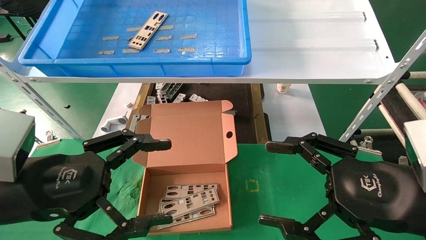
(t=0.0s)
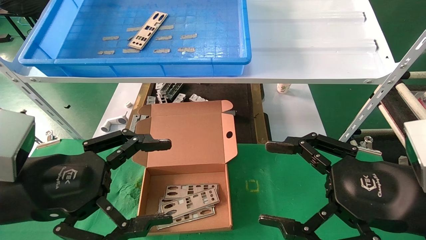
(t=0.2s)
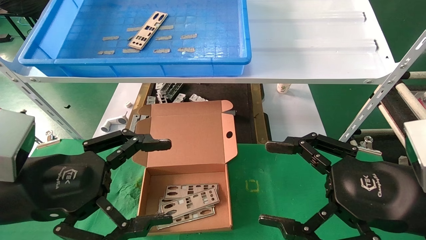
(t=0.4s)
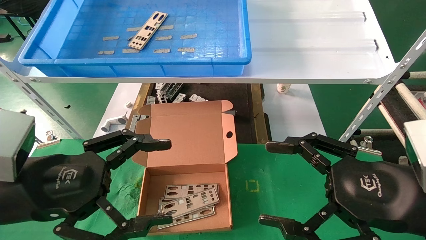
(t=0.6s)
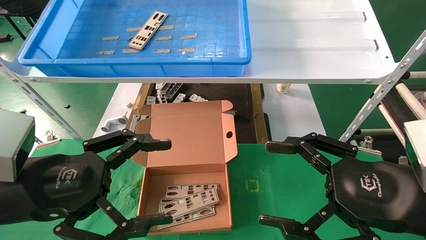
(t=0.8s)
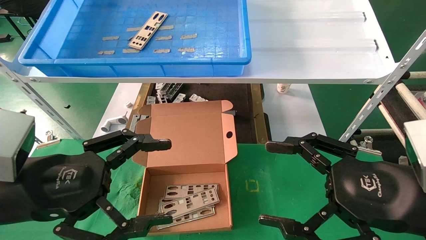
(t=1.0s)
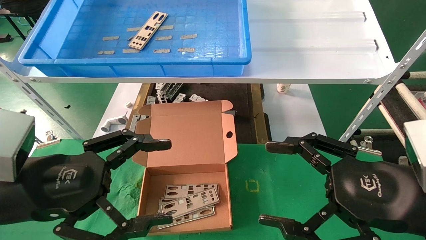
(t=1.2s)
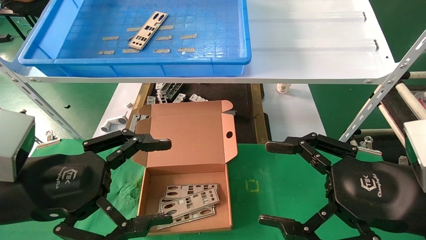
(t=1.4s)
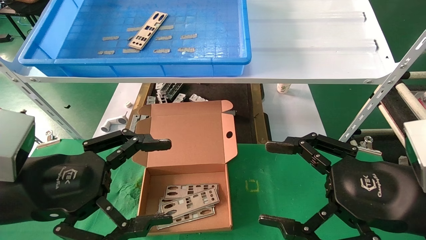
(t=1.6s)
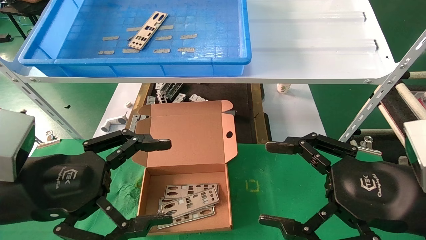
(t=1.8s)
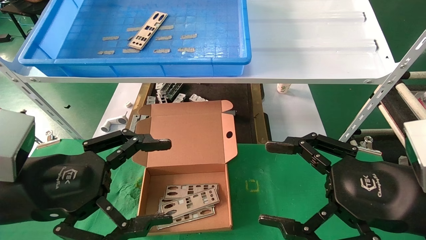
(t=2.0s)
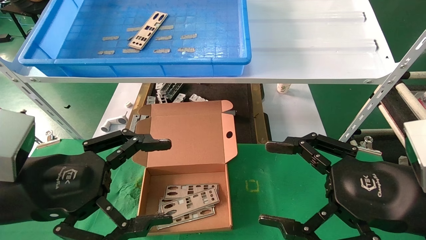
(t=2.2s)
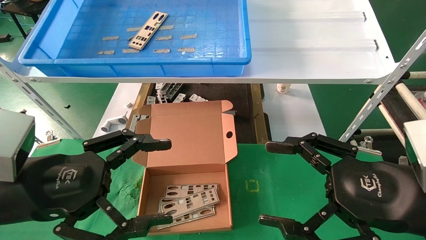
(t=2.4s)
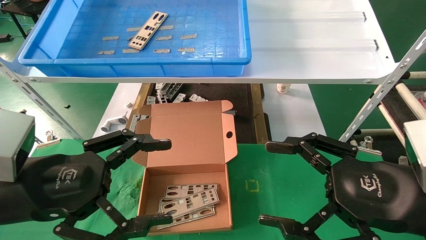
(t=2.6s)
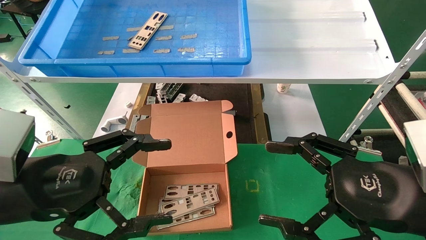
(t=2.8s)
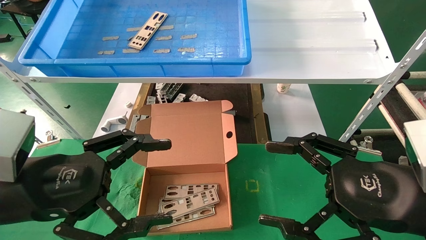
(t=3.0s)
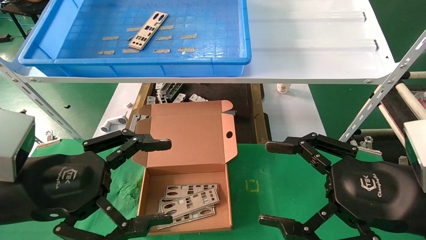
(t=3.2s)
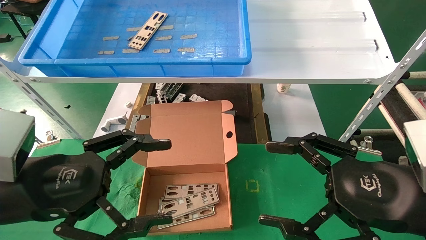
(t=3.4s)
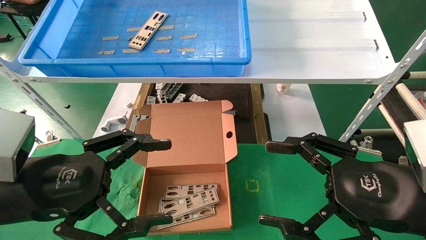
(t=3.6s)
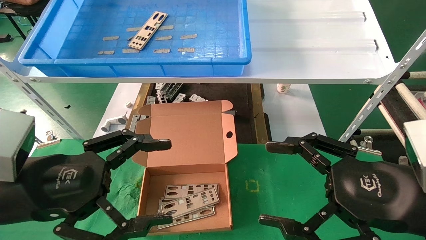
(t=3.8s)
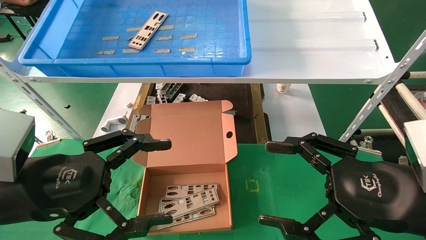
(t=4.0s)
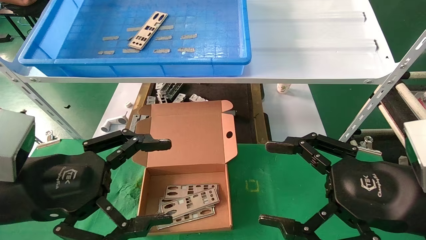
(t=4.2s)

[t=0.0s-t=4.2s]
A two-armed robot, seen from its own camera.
Task of the whole recording: pick up the parts on the tray and put them in the cardboard box.
t=0.0s to t=4.2s: The two grippers keep their place.
